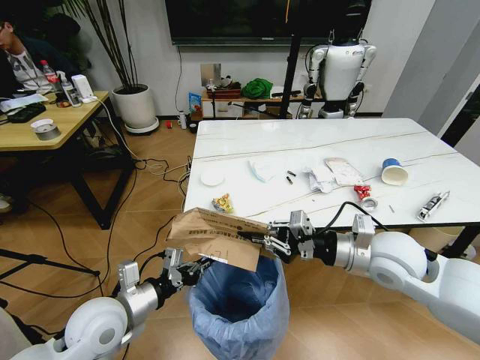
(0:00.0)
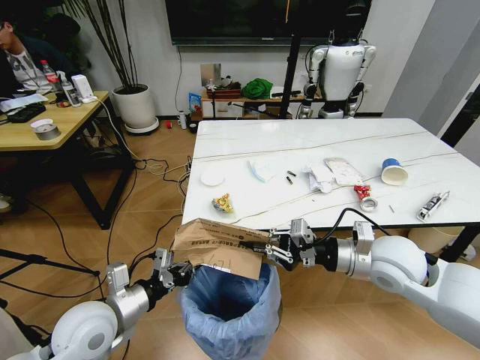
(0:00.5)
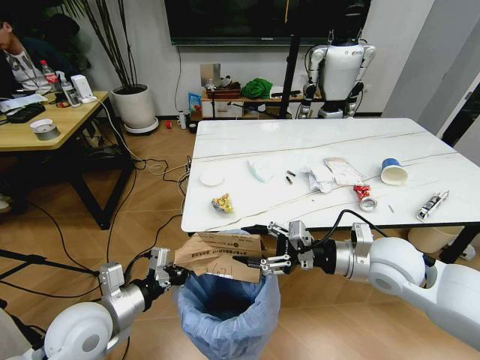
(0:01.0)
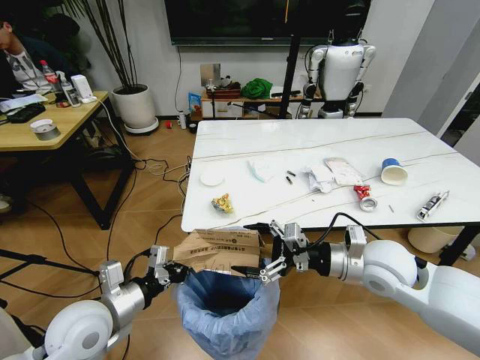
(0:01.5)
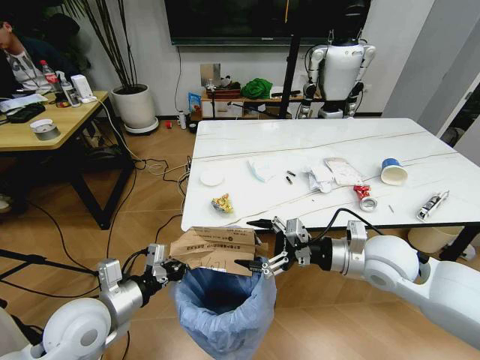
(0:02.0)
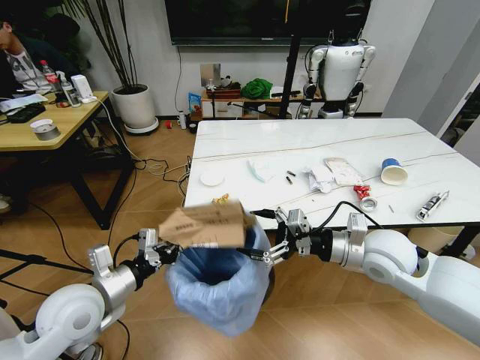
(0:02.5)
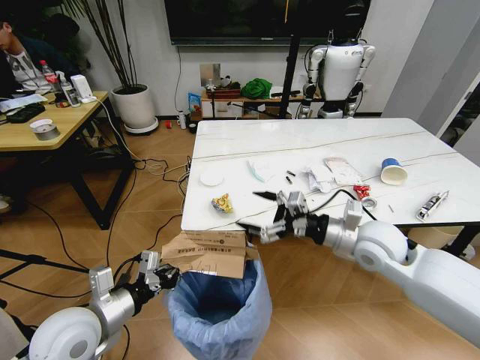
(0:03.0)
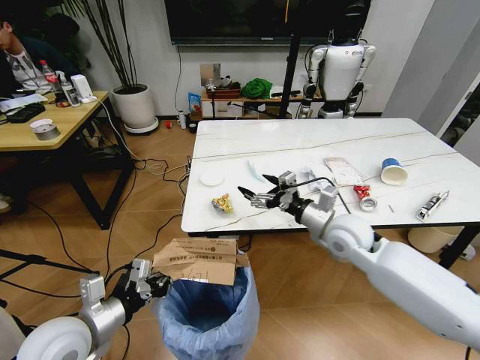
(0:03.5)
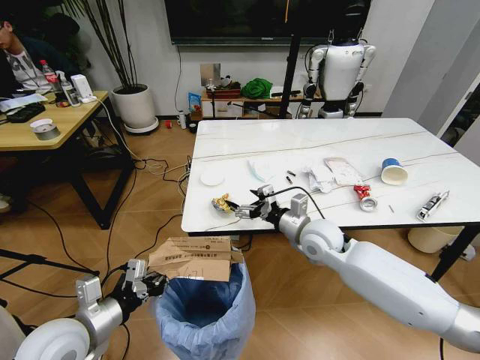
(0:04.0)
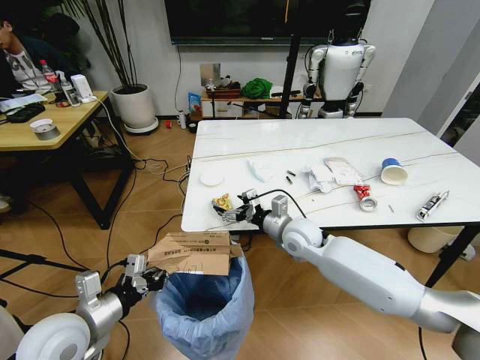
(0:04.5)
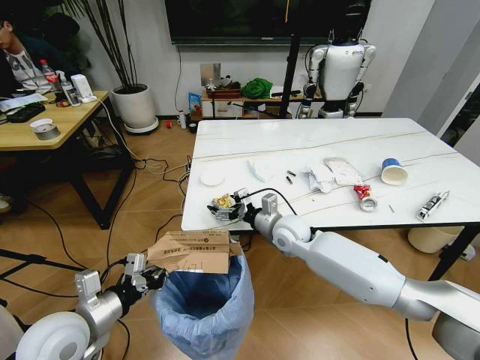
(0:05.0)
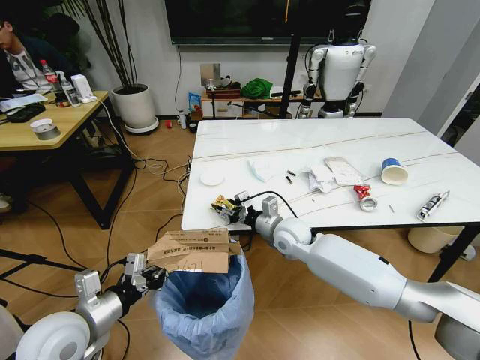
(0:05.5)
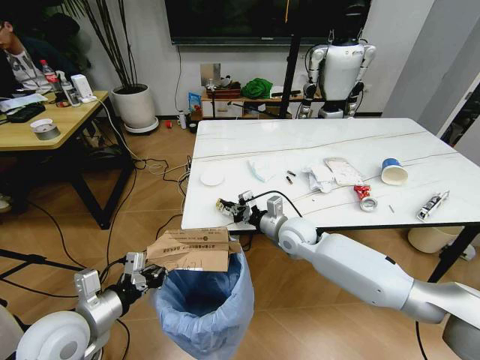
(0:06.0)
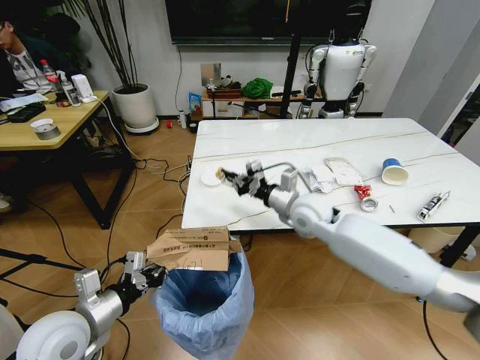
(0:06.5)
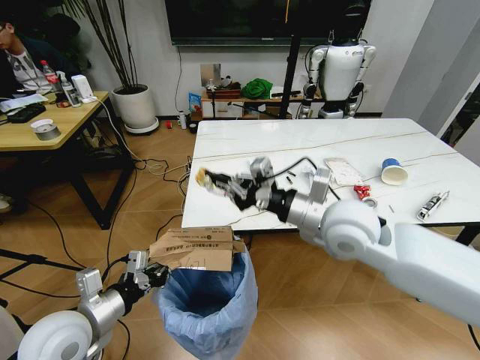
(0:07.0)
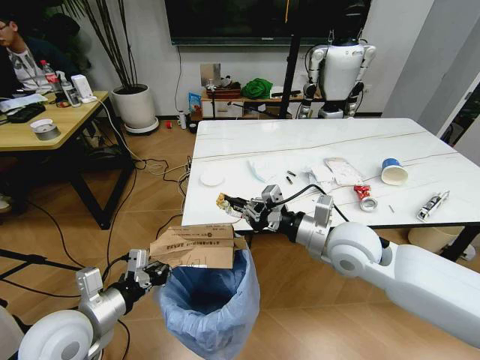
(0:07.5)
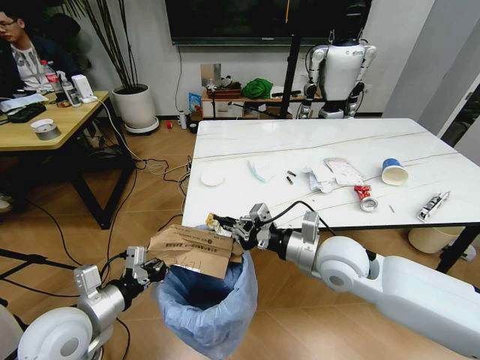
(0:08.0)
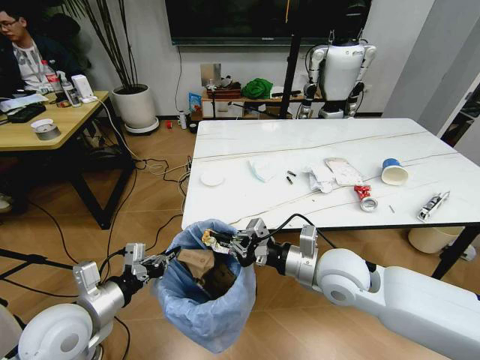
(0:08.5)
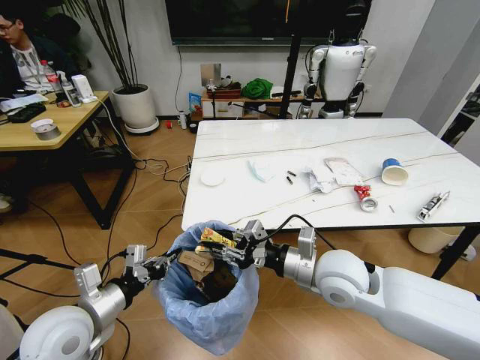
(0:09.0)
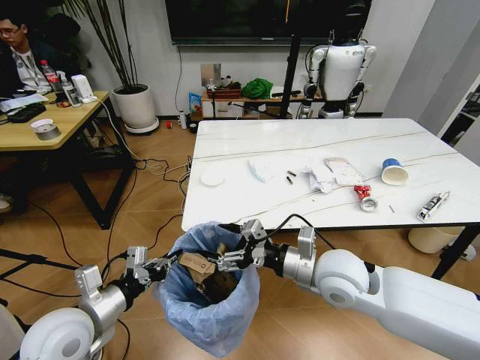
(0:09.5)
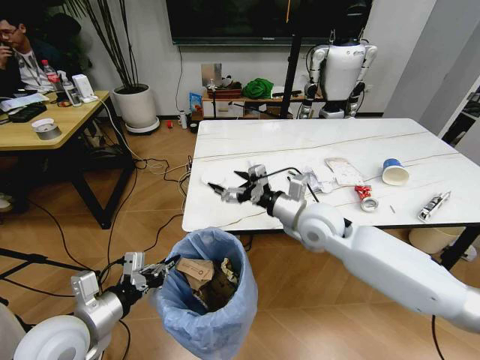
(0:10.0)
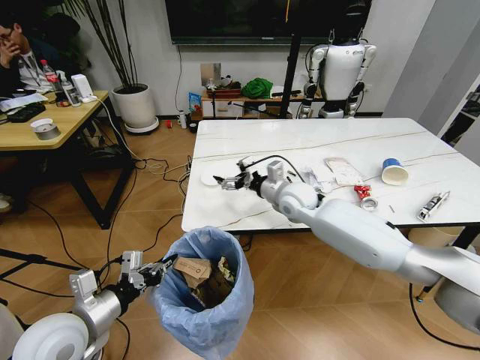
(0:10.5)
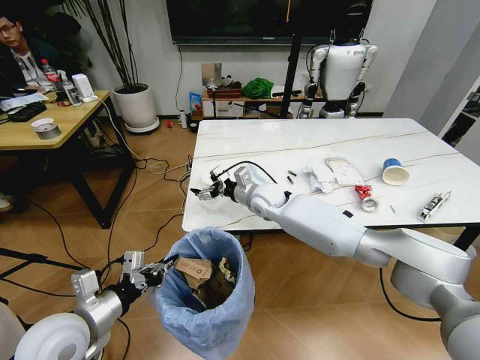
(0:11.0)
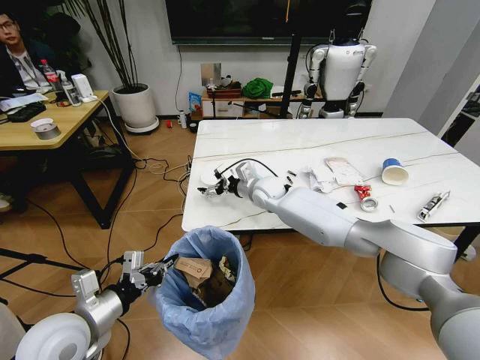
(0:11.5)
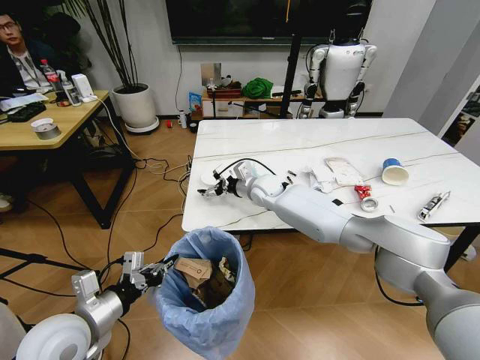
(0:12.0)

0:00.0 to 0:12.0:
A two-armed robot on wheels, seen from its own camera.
Task of the whole recording: Pick up the trash bin and place the trash from the table into it.
0:00.0 to 0:02.0: The right gripper opens its fingers.
0:02.0 to 0:04.0: The right gripper goes some 15 cm to the left, forward and downward.
0:04.0 to 0:06.0: The right gripper changes place by roughly 5 cm, and closes its fingers.
0:06.0 to 0:08.0: The right gripper heads backward and upward, covering approximately 15 cm.
0:08.0 to 0:10.0: The right gripper goes approximately 10 cm forward, and opens up.
0:10.0 to 0:12.0: The right gripper goes about 20 cm forward and to the left.

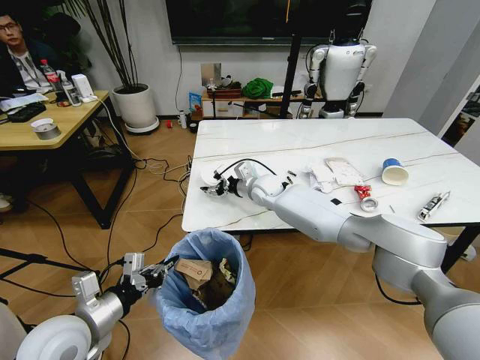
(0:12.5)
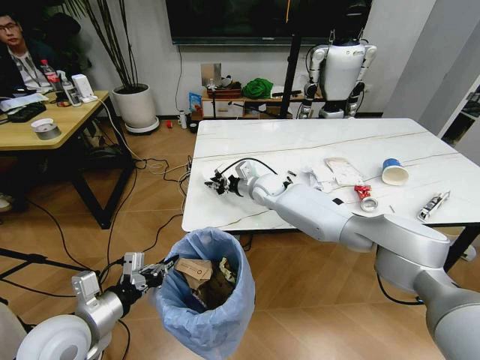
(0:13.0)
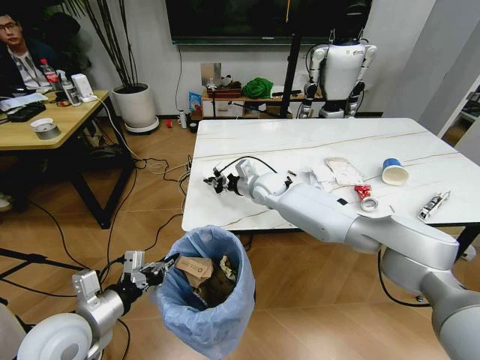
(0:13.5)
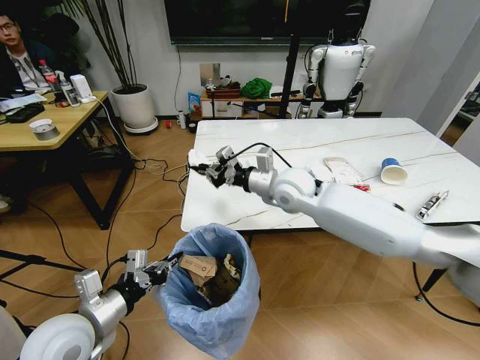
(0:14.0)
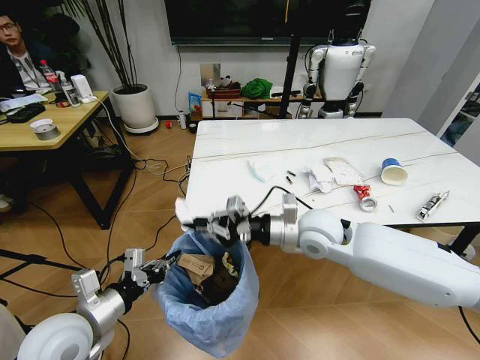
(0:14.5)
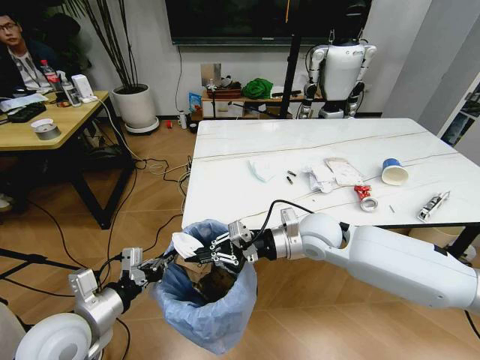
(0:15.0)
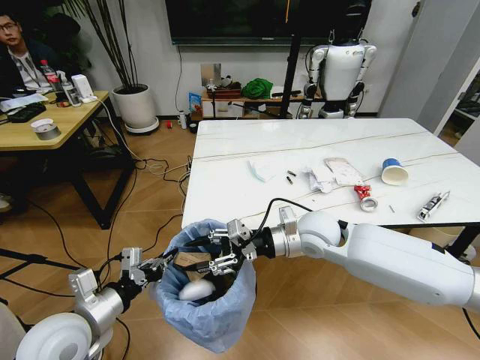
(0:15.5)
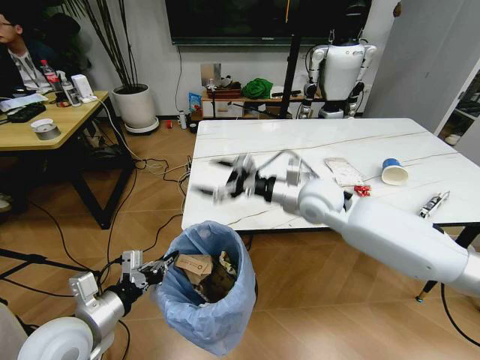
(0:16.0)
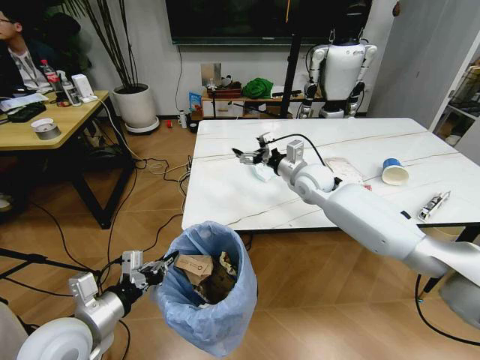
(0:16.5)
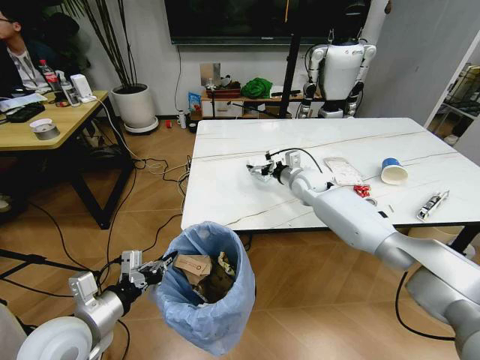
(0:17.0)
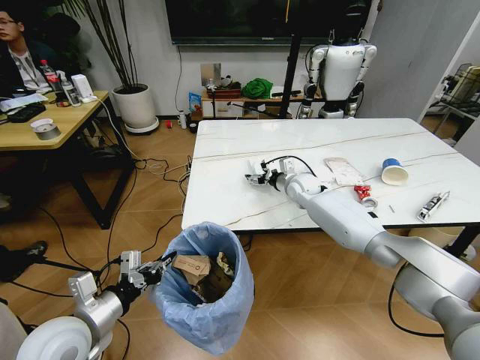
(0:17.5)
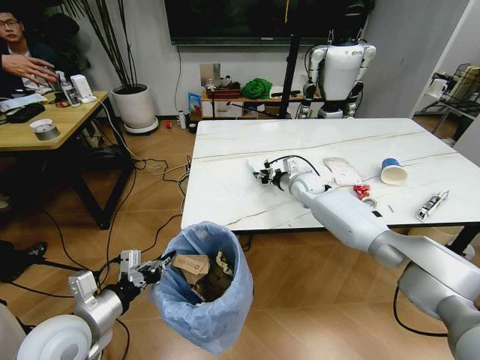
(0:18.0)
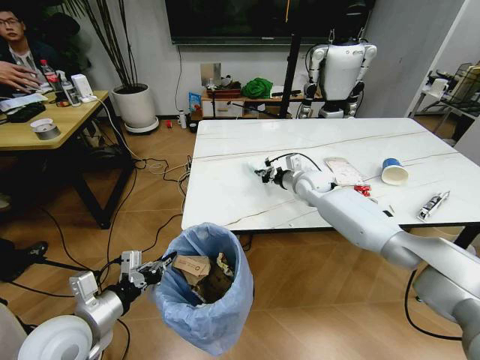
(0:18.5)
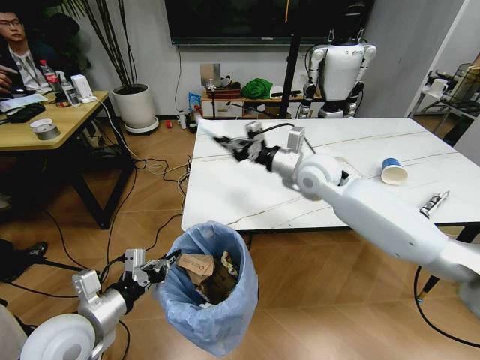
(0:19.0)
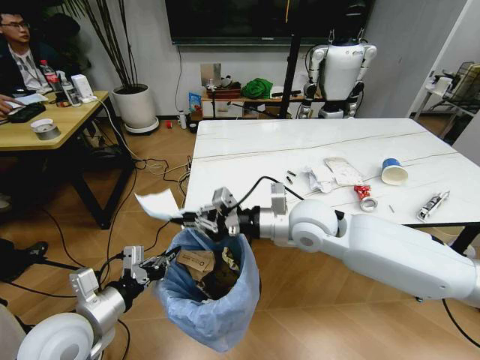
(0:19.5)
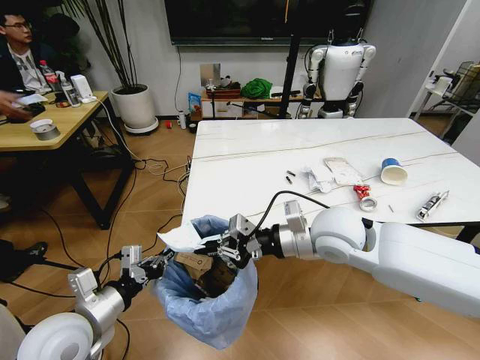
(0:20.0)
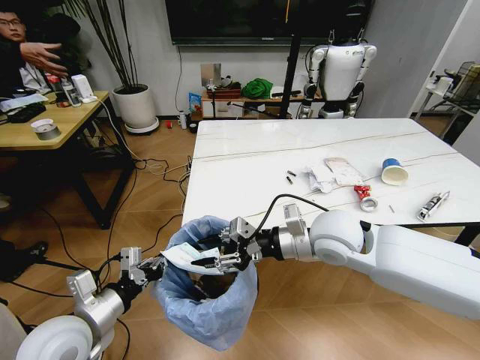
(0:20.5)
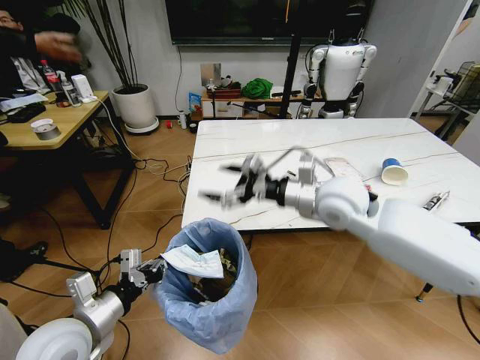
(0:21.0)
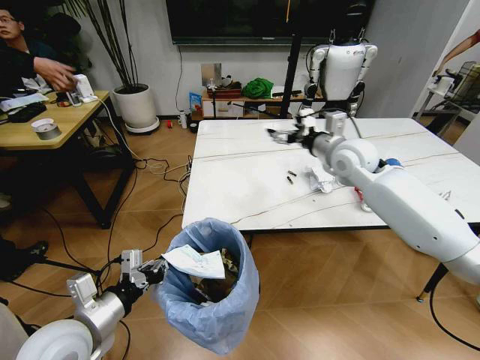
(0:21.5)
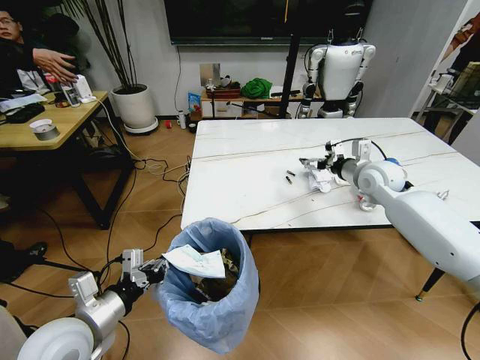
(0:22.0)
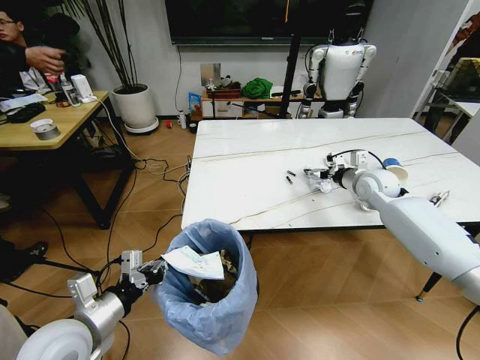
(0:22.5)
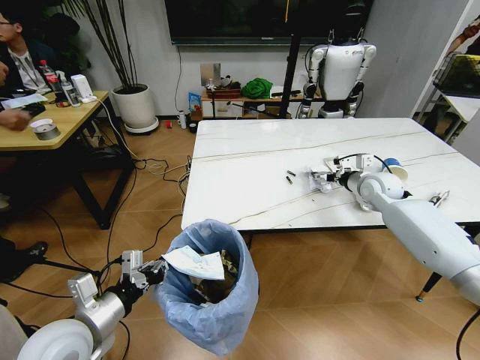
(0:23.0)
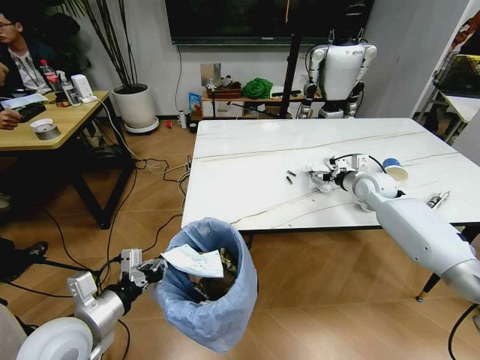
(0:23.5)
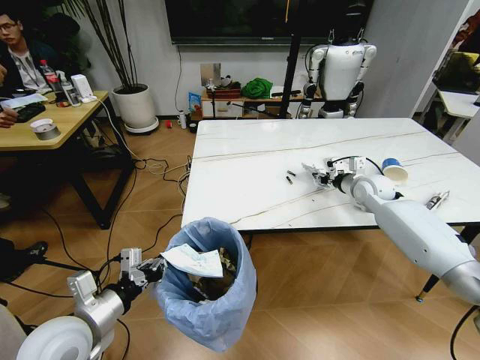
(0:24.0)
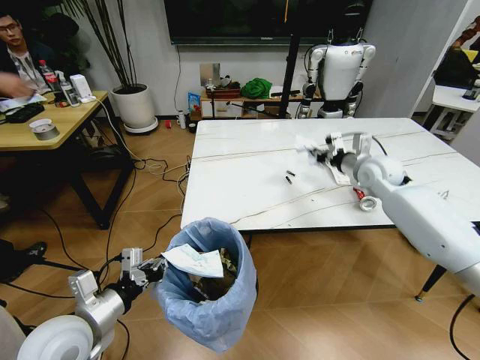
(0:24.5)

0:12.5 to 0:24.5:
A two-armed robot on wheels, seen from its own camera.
Task of the whole recording: Pick up the trash bin and place the trash from the table into it.
0:12.5 to 0:14.5: The right gripper travels backward by some 20 cm, and closes its fingers.
0:14.5 to 0:16.5: The right gripper shifts roughly 15 cm forward, and opens up.
0:16.5 to 0:18.5: The right gripper travels downward and forward by about 10 cm, and closes its fingers.
0:18.5 to 0:20.5: The right gripper moves backward, about 25 cm, and opens.
0:20.5 to 0:22.5: The right gripper moves to the right and forward, some 25 cm, and opens its fingers.
0:22.5 to 0:24.5: The right gripper heads upward, covering about 5 cm, and closes its fingers.

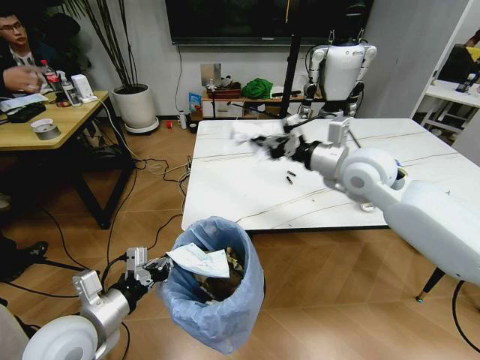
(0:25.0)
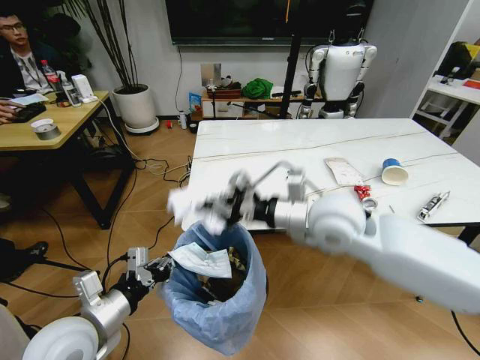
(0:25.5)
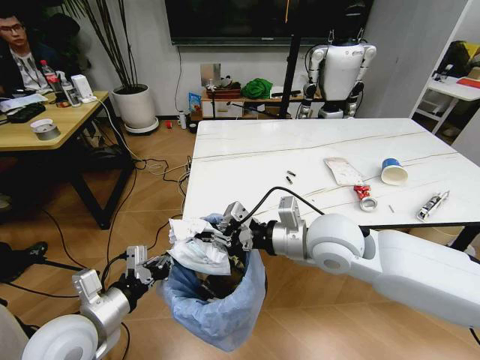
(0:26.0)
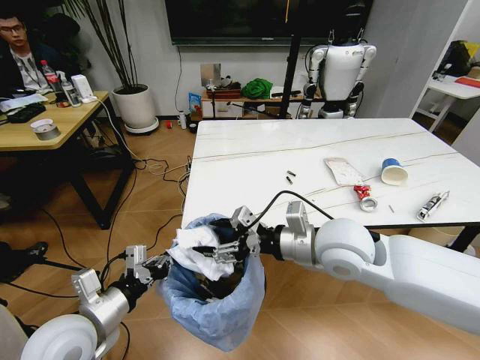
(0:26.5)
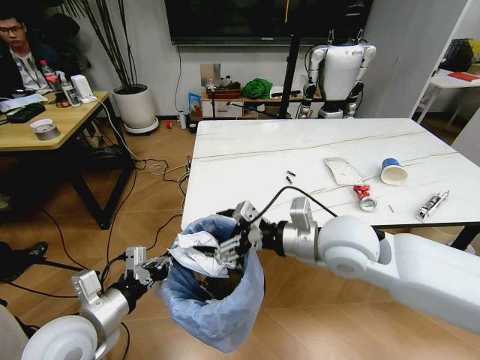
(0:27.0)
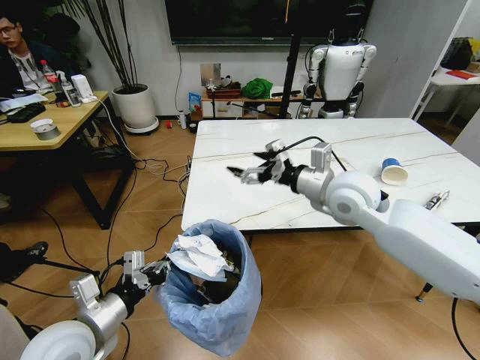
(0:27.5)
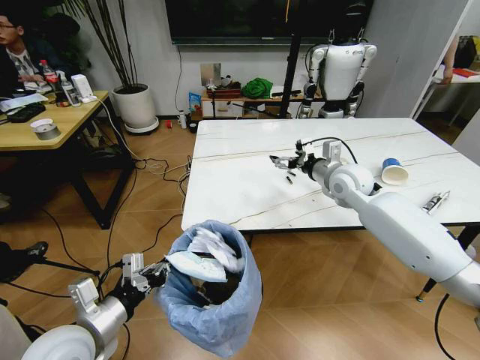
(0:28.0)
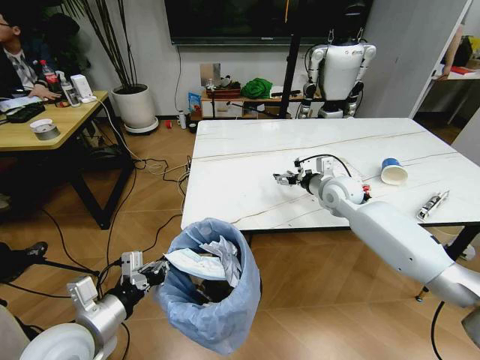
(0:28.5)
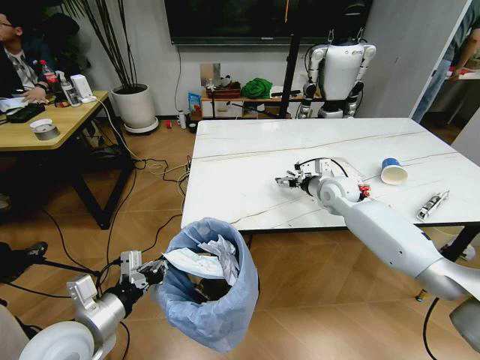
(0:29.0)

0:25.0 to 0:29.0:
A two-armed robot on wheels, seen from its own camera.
Task of the whole recording: Pick up the trash bin and place the trash from the table into it.
0:25.0 to 0:27.0: The right gripper moves backward, to the left and downward, about 15 cm, and opens.
0:27.0 to 0:29.0: The right gripper heads forward, downward and to the right, covering approximately 25 cm.
